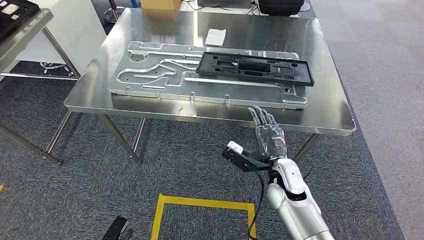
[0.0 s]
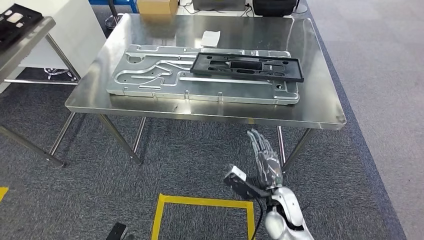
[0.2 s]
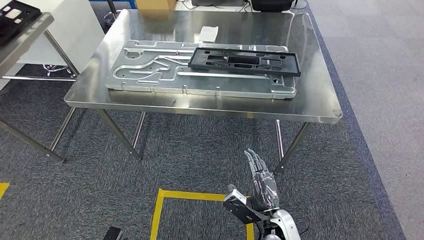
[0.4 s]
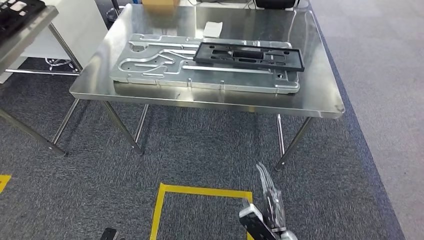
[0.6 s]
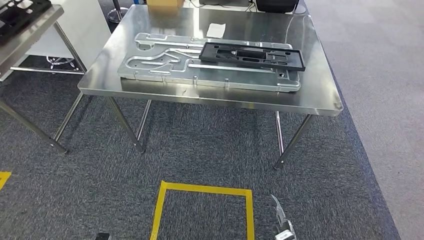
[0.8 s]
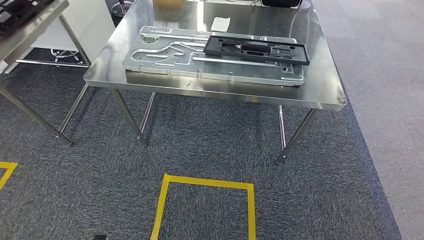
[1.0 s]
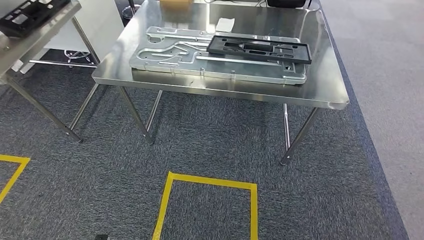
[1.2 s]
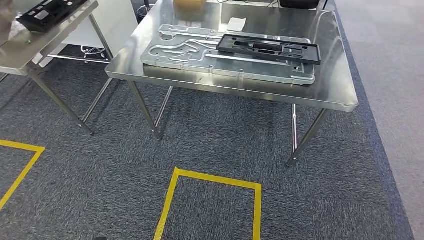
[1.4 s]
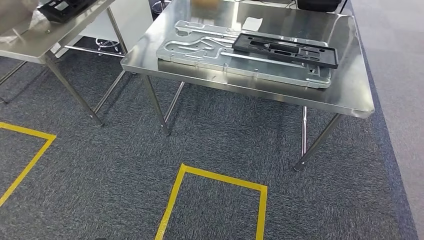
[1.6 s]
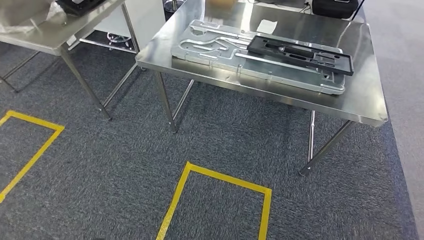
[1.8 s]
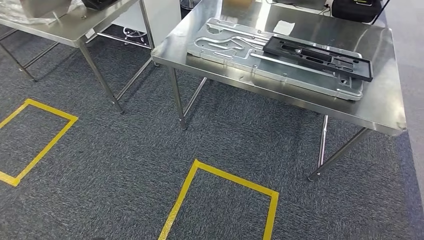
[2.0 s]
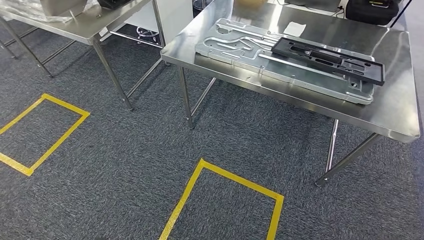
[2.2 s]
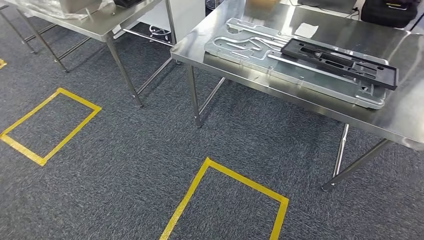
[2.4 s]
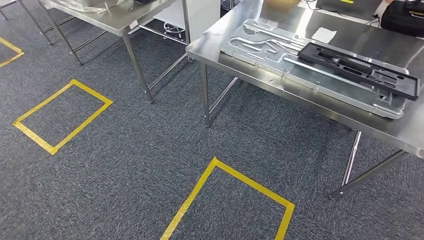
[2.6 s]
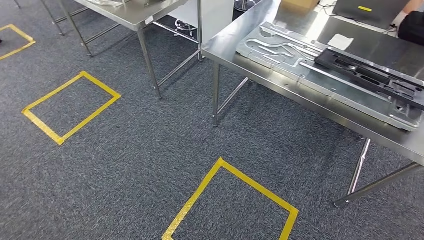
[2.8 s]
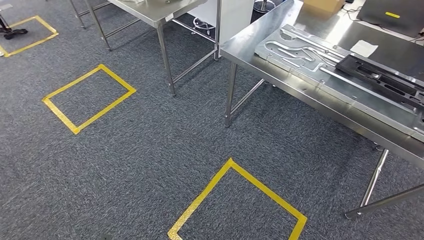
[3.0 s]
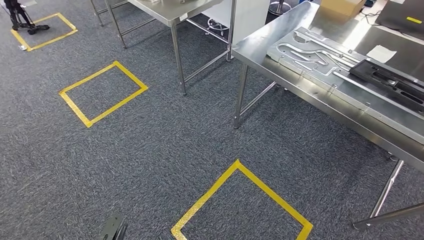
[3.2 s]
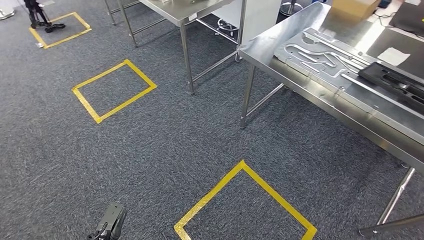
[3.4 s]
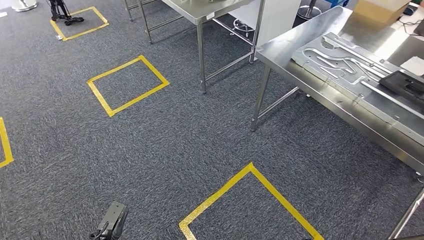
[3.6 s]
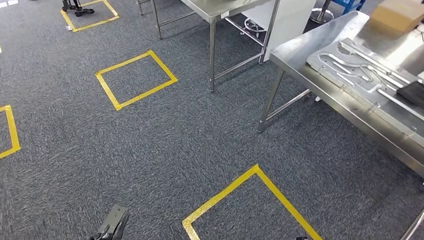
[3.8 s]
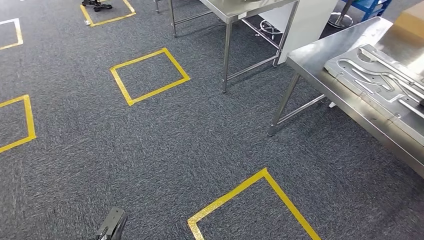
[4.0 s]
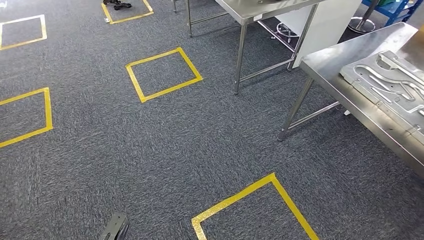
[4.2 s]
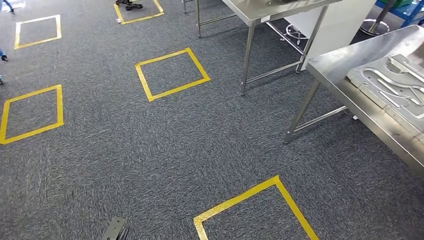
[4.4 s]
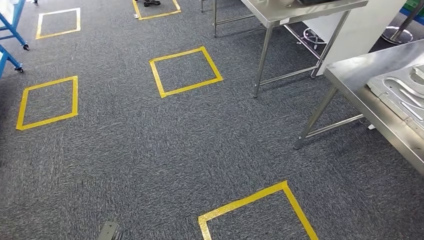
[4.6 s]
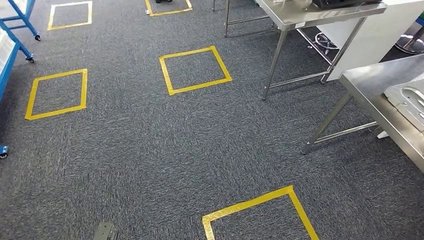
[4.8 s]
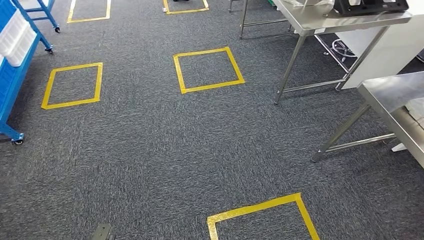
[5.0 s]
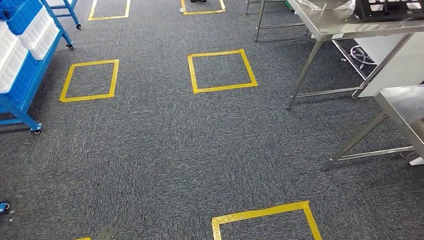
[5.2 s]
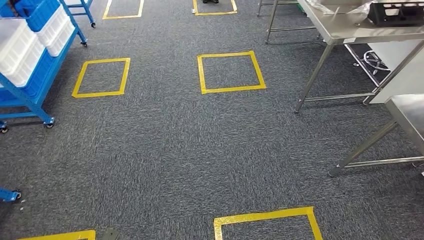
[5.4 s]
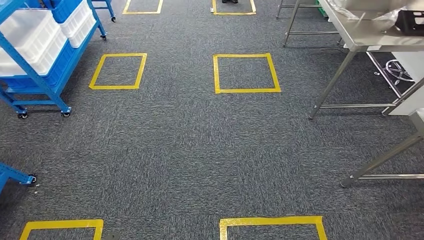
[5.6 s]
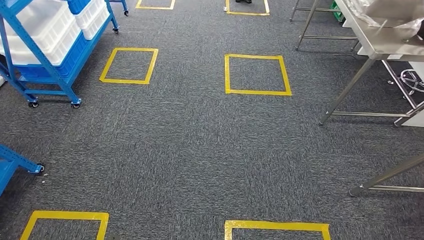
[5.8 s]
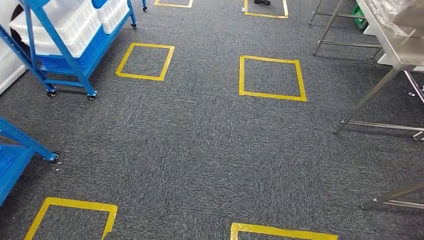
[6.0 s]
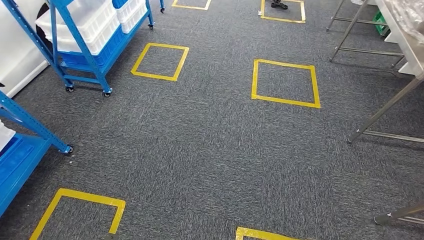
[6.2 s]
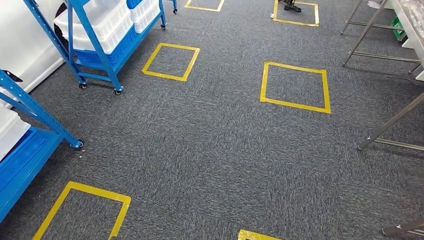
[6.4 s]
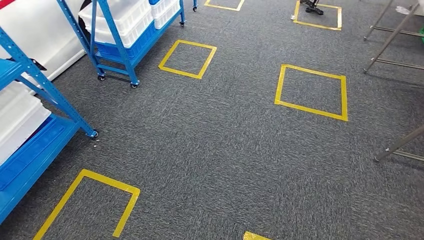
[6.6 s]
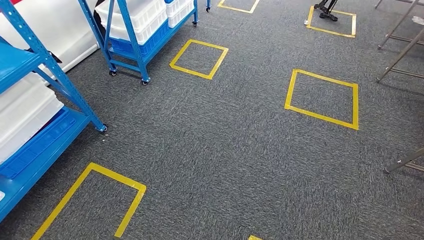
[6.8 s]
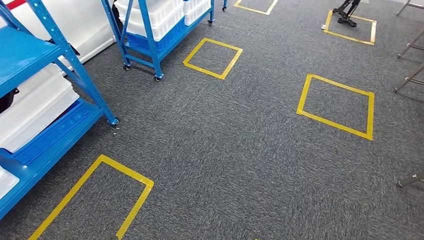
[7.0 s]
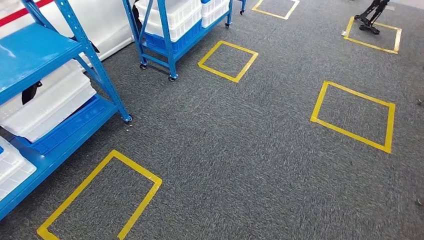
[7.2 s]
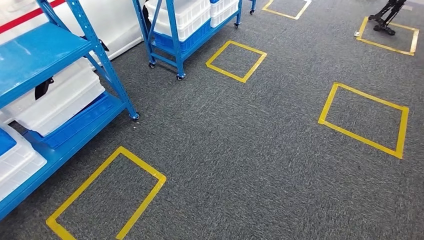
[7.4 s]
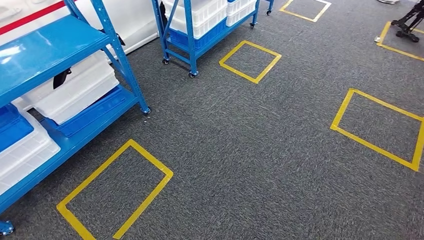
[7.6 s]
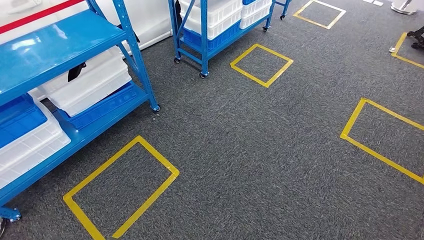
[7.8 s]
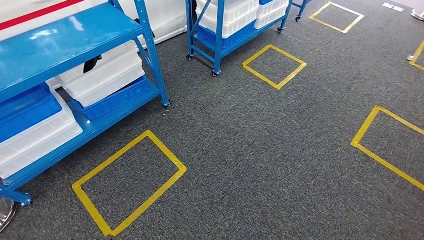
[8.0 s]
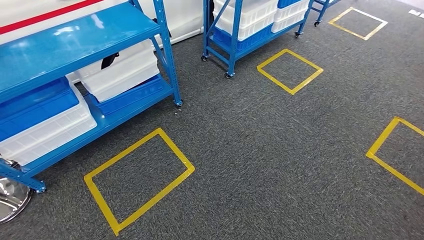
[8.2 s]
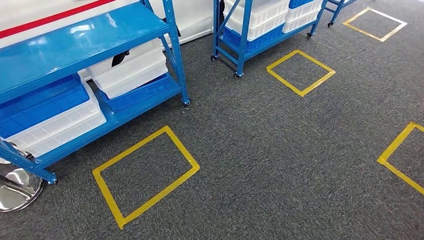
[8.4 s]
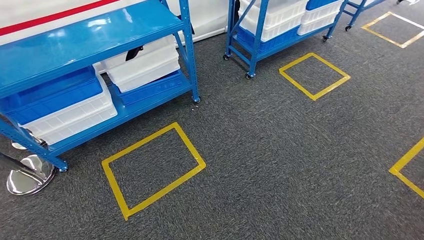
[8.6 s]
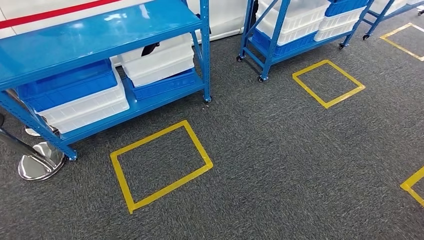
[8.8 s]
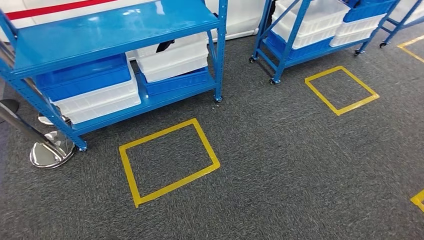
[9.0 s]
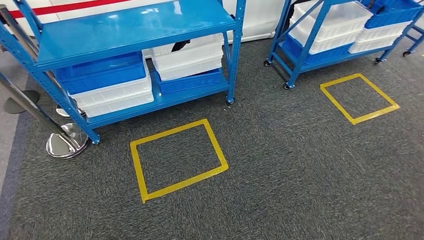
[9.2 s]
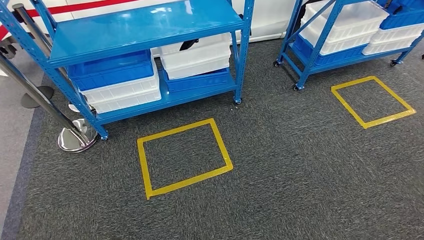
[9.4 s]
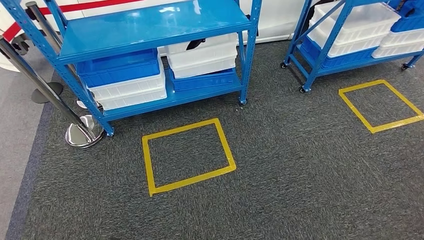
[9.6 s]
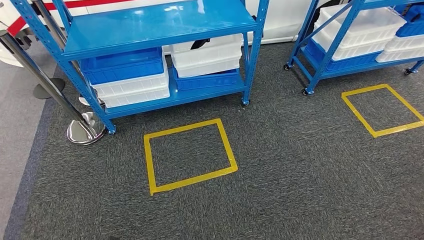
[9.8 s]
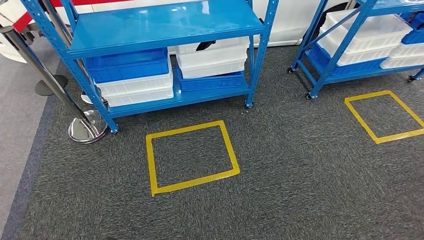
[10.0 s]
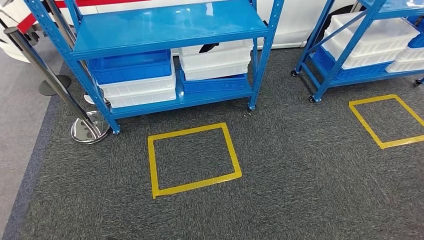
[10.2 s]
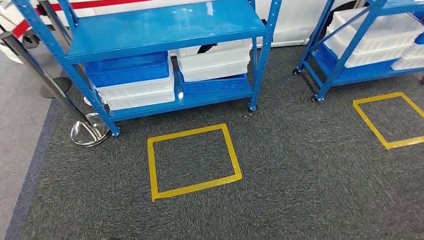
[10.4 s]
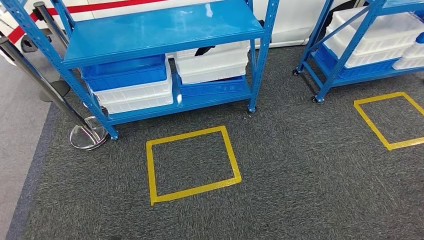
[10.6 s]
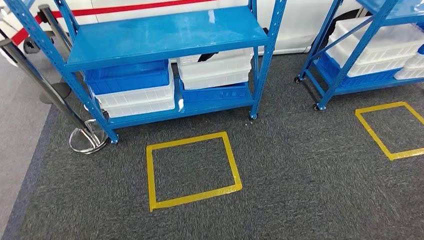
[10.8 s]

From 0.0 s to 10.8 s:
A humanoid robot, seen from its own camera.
Step, from 2.6 s to 10.8 s: Move to the initial position of the shelf.
